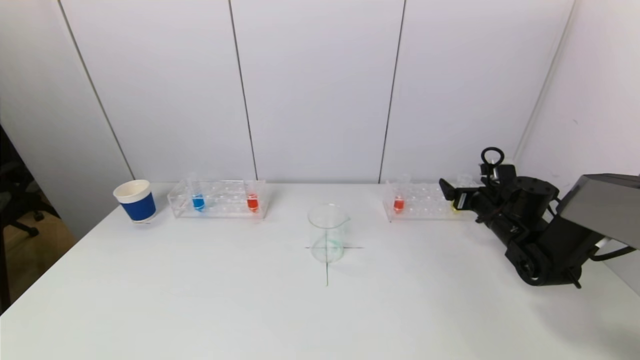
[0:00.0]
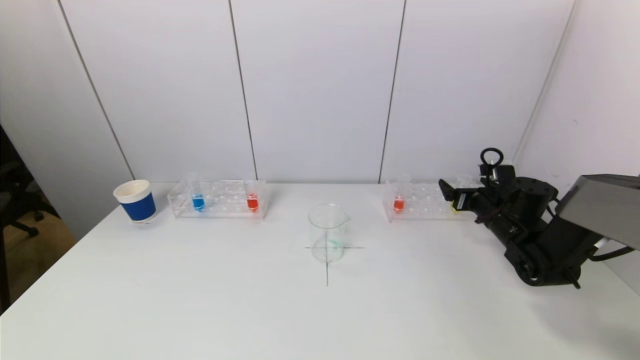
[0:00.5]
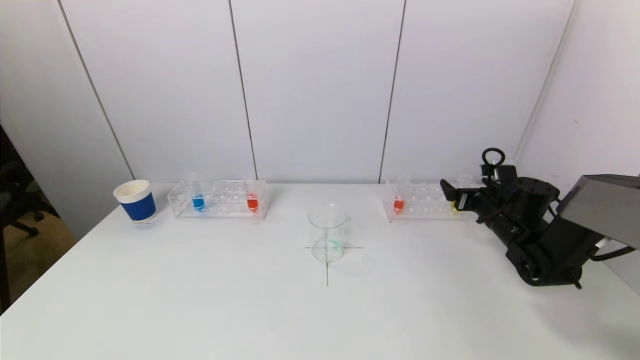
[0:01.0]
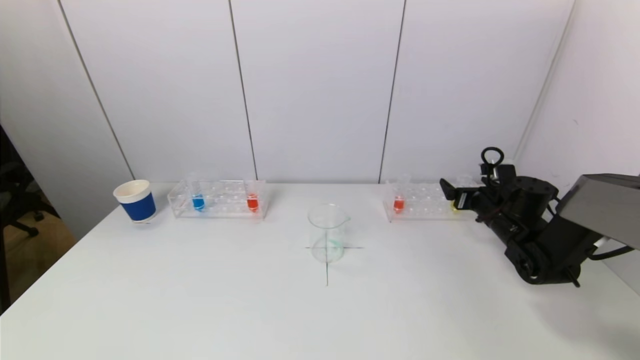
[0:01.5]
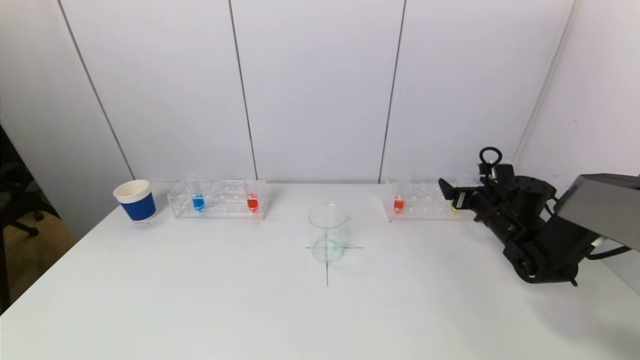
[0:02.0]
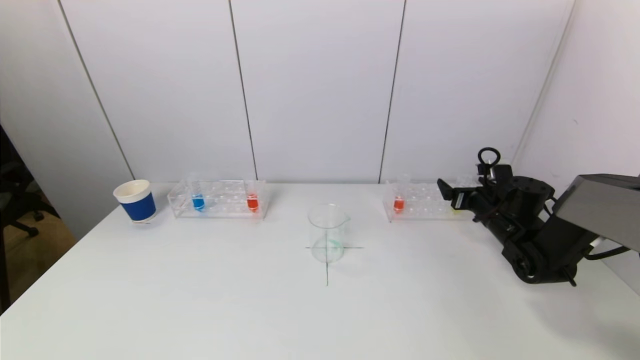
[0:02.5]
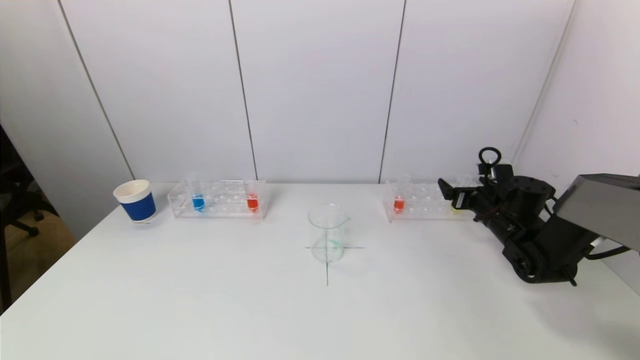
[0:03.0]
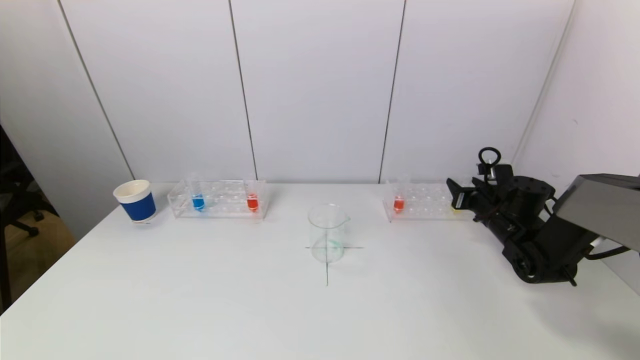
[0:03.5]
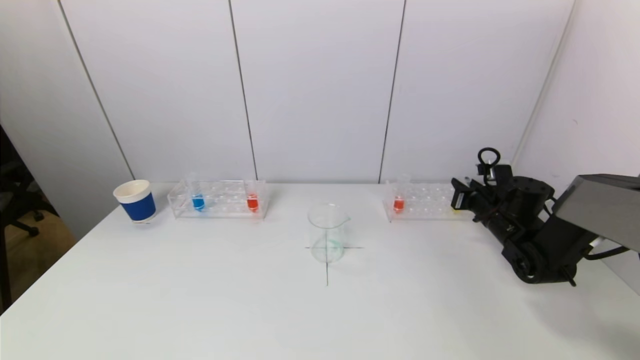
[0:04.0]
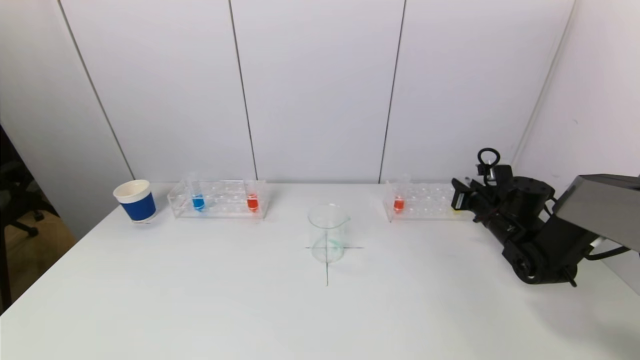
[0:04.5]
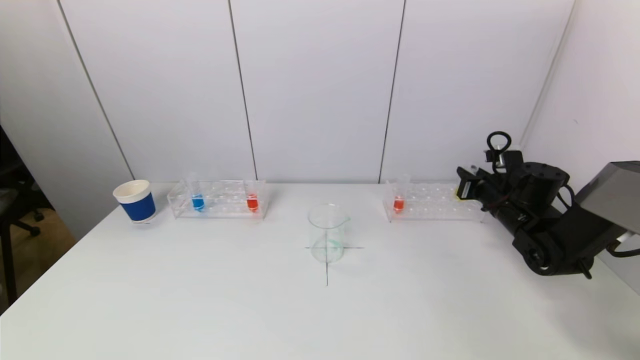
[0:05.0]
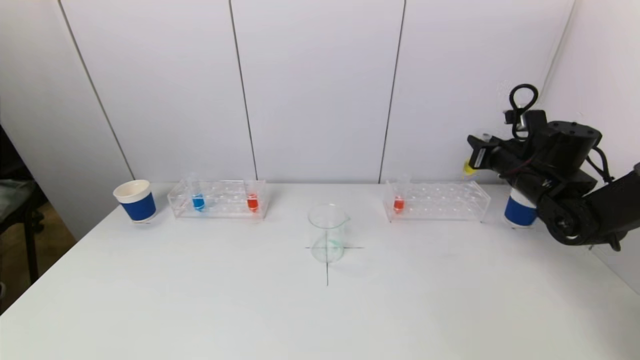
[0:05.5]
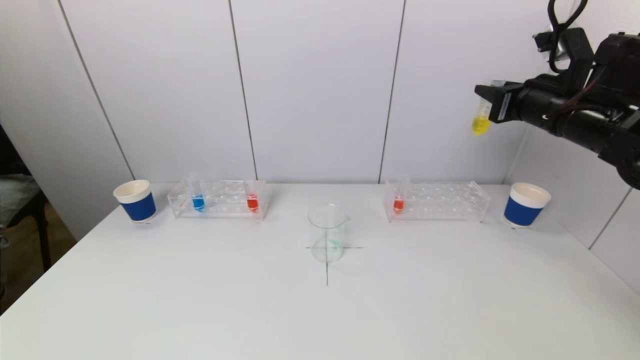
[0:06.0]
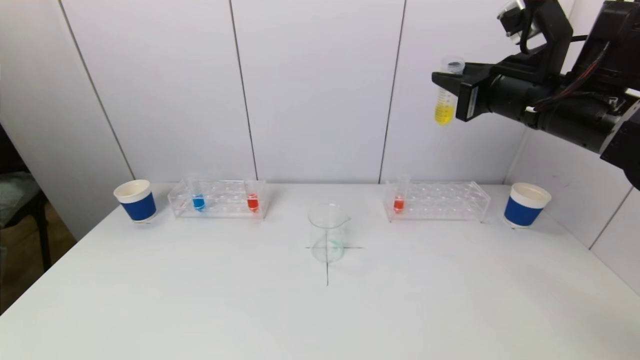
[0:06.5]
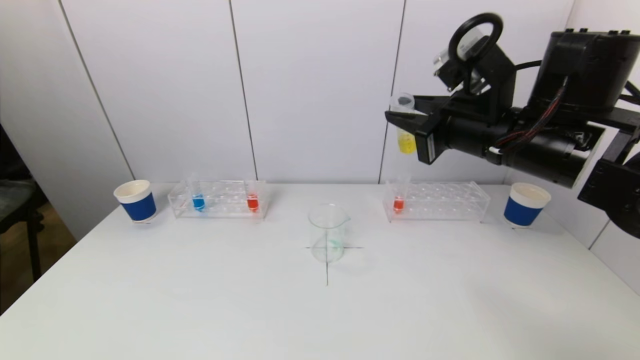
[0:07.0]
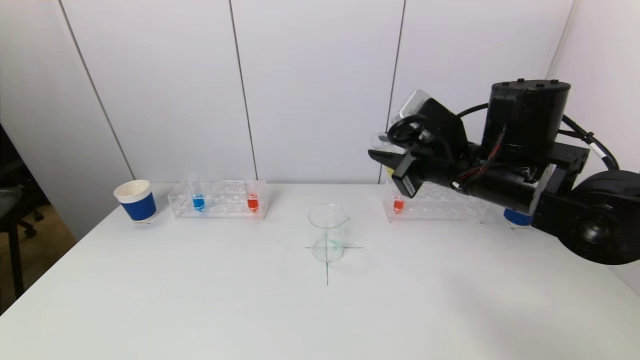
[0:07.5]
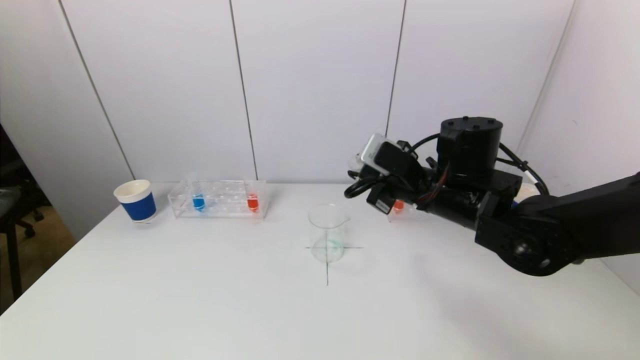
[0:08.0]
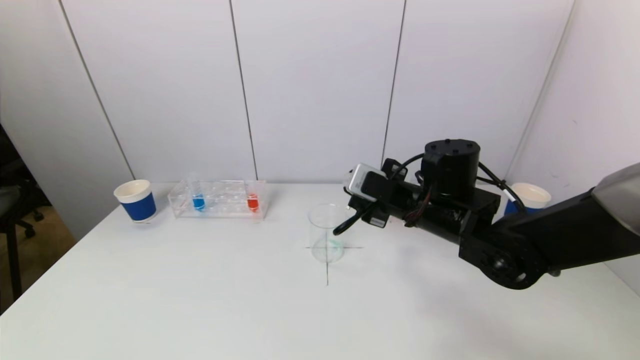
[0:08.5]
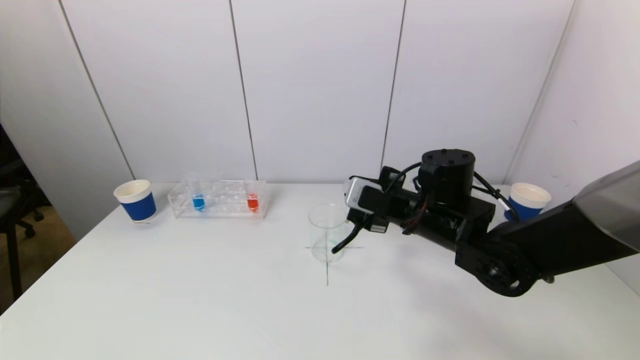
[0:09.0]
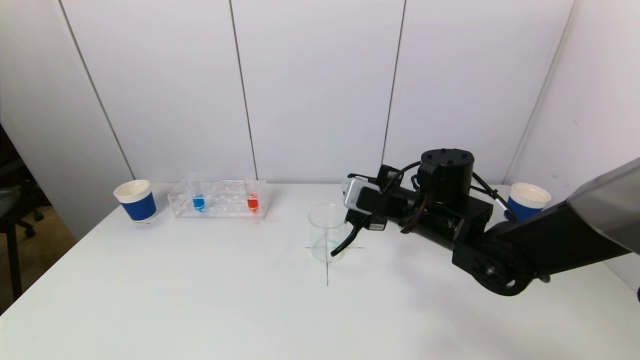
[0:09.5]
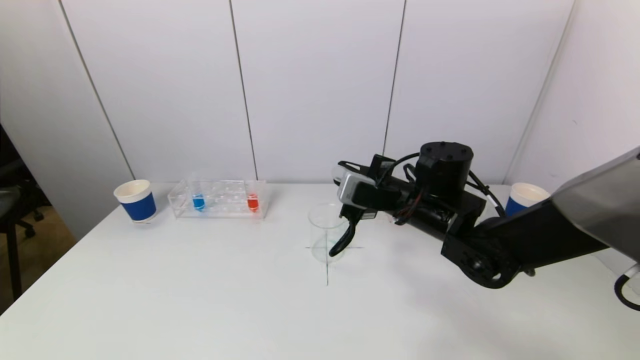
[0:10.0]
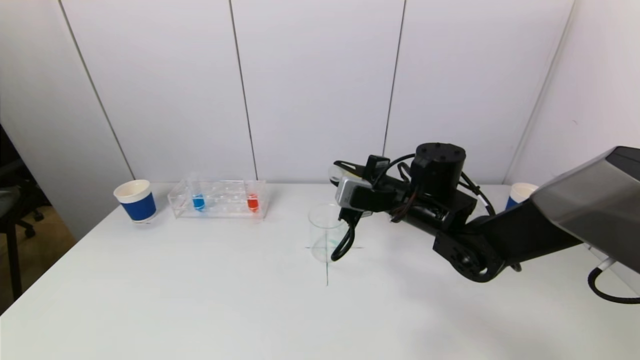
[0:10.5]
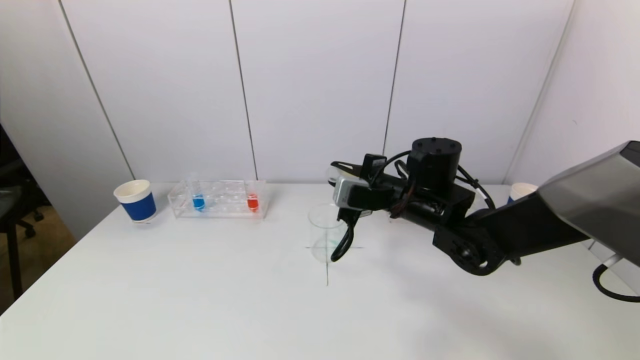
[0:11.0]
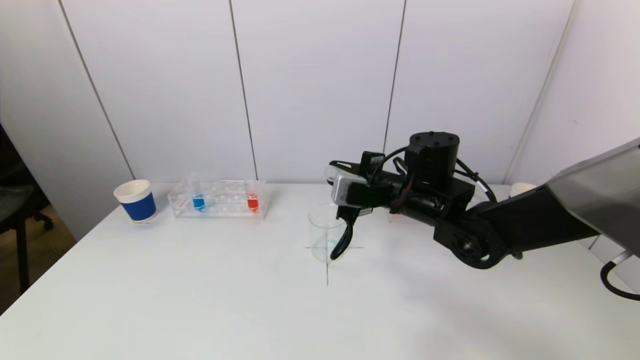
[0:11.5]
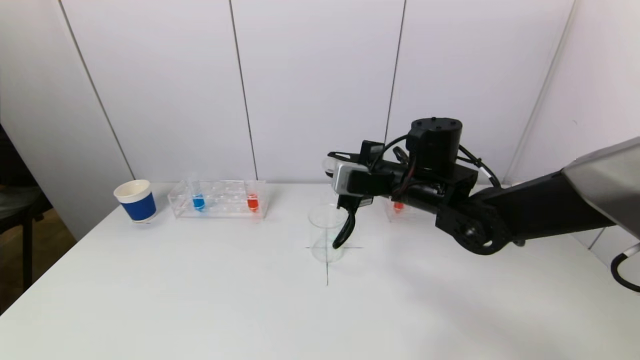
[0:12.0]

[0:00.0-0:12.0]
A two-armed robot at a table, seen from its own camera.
Task of the whole recording: pick up a test tube with pigment on left test tube rack and a test tube with pigment on right test tube rack by grippers and pour them into the beaker.
0:00.0 to 0:02.0: The two grippers keep their place.
0:02.0 to 0:04.0: The right gripper closes.
0:04.0 to 0:06.0: The right gripper moves upward, roughly 25 cm.
0:06.0 to 0:08.0: The right gripper goes roughly 20 cm to the left and downward.
0:08.0 to 0:10.0: The grippers stay close to where they were, moving slightly.
0:10.0 to 0:12.0: The grippers stay close to where they were, moving slightly.

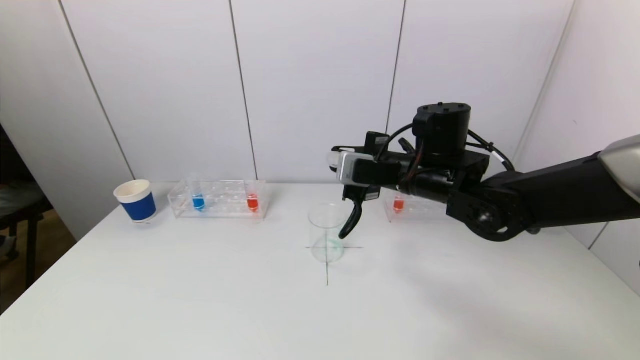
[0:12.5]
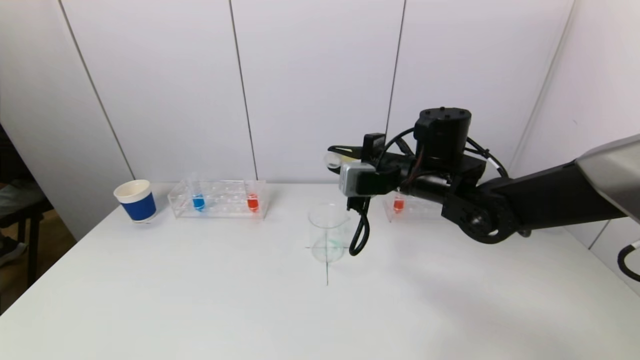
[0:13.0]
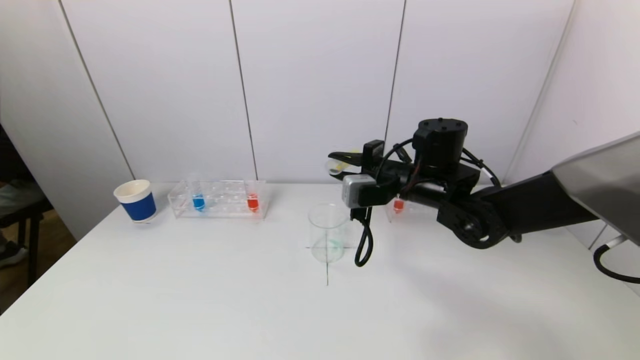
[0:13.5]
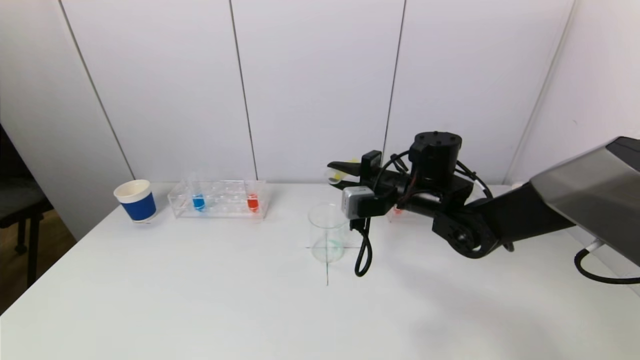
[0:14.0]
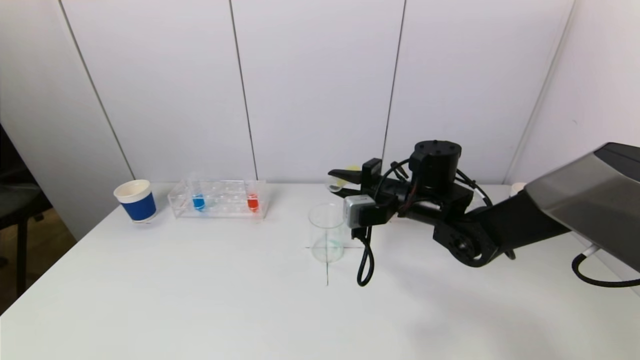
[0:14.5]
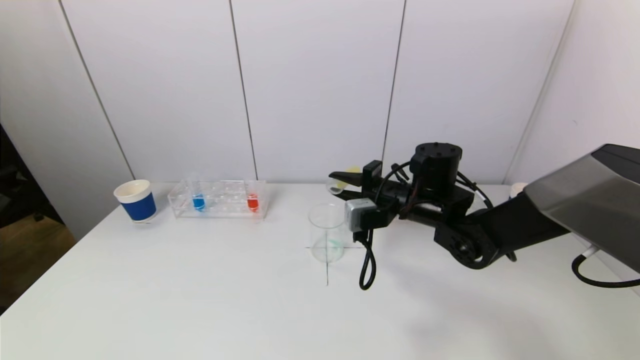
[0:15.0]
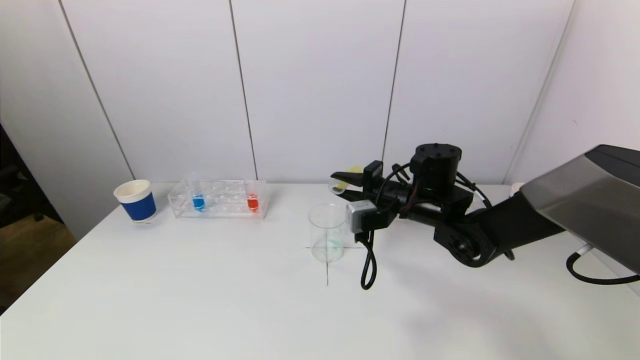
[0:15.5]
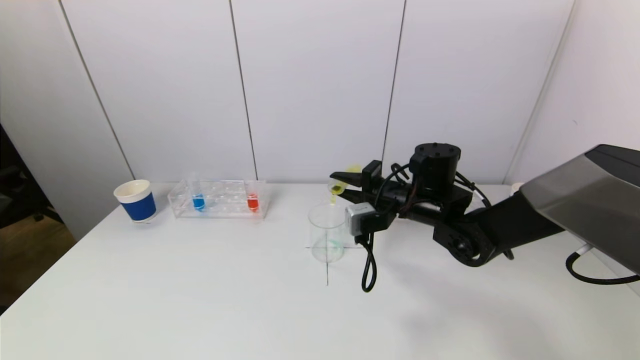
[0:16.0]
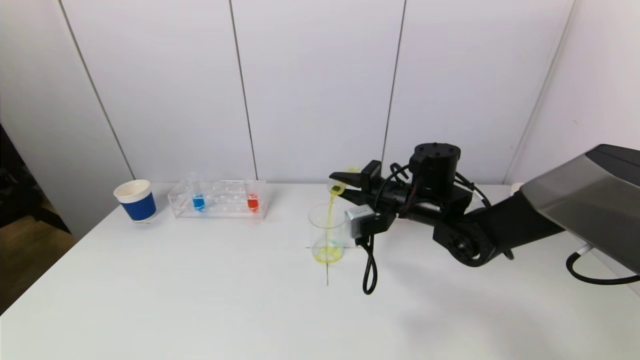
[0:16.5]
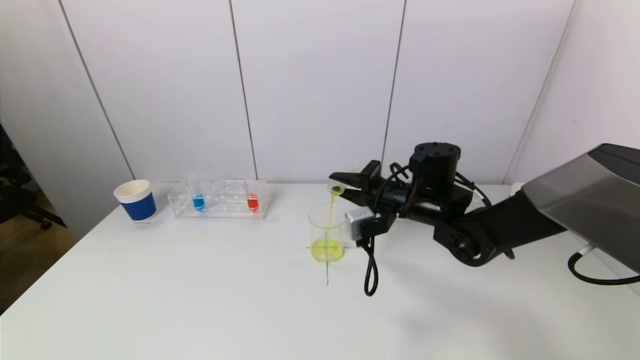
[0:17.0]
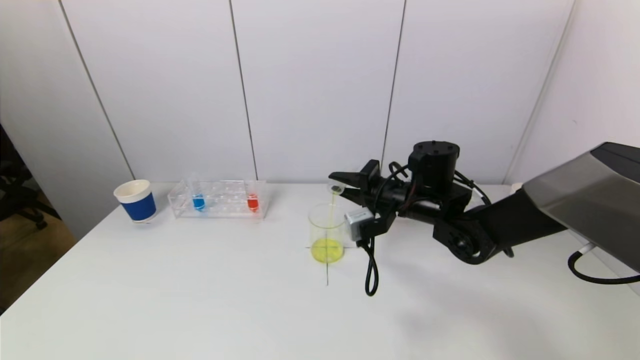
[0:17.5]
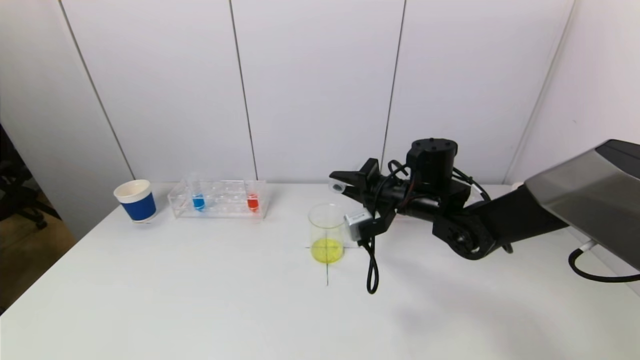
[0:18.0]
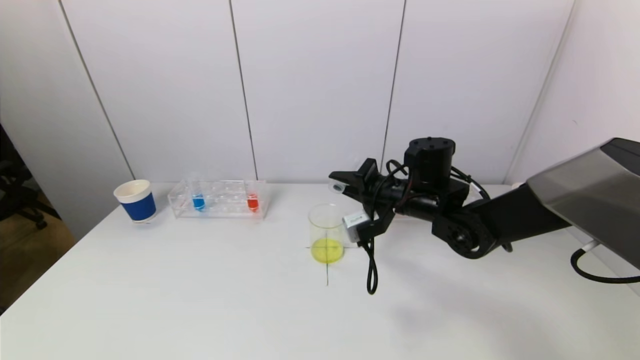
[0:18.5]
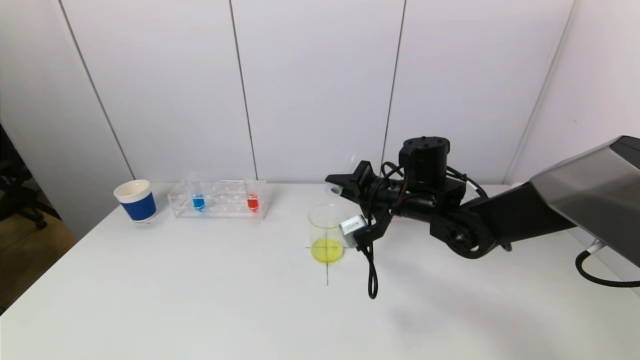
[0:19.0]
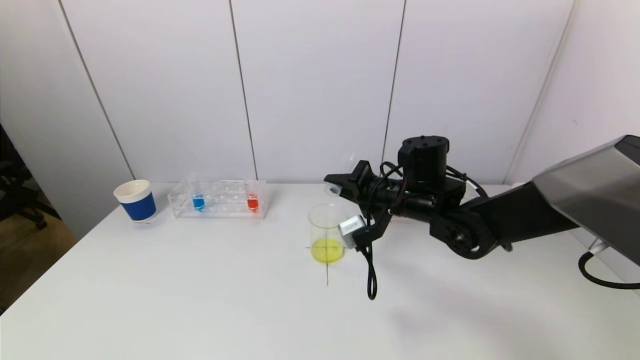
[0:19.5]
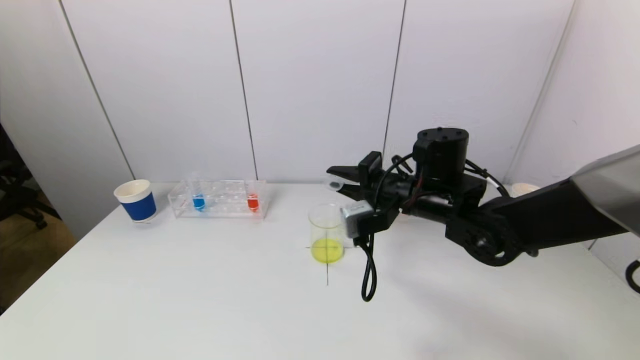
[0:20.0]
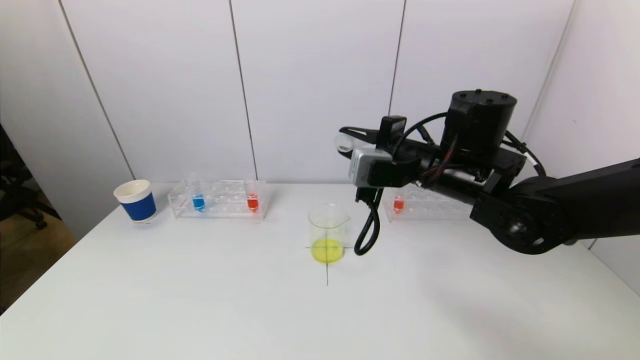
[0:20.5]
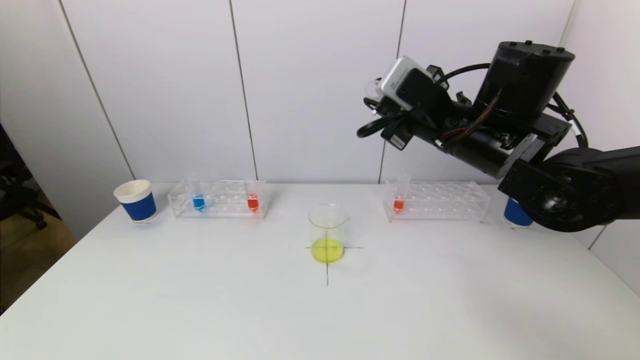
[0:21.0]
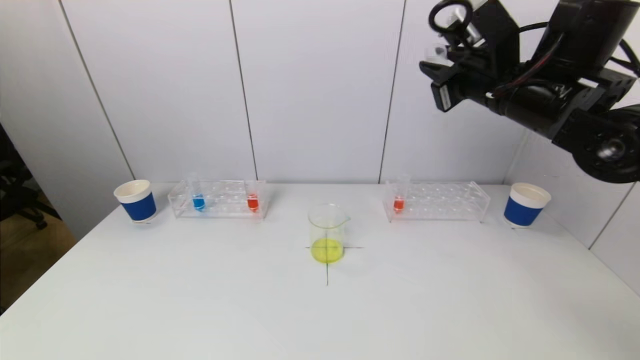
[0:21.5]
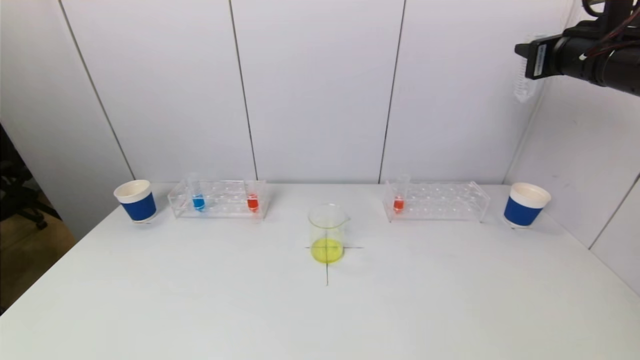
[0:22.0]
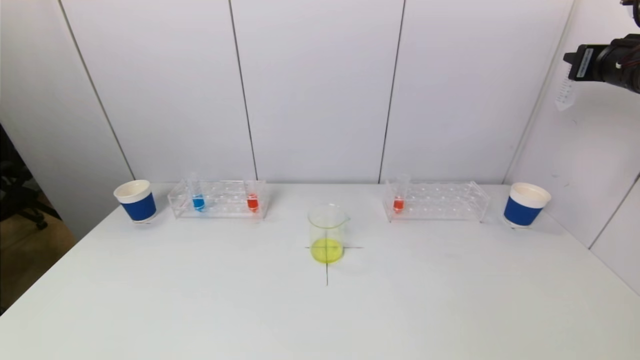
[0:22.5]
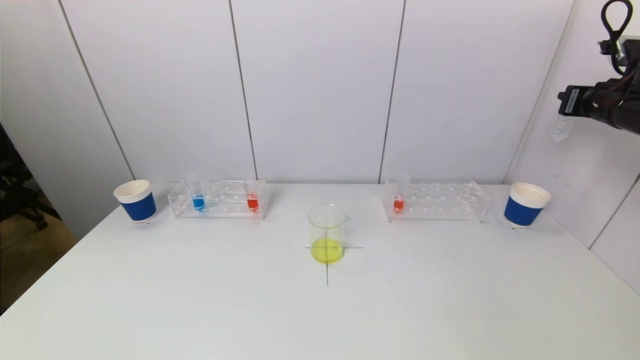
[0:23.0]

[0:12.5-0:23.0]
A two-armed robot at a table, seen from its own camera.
Task of the whole recording: pick up a test tube with pigment on left test tube rack and a test tube with pigment on right test tube rack by grippers and pour them into the beaker.
Step, 0:12.5 to 0:19.0: Pour the yellow reagent into the graduated cylinder with the right gripper.
0:12.5 to 0:14.5: The right gripper shifts about 5 cm downward.
0:14.5 to 0:16.5: The grippers make only small movements.
0:16.5 to 0:19.0: The grippers make only small movements.
0:19.0 to 0:21.0: The right gripper is displaced upward by some 15 cm.
0:21.0 to 0:23.0: The right gripper shifts roughly 30 cm to the right.
